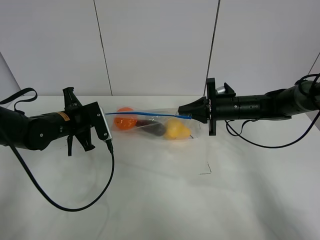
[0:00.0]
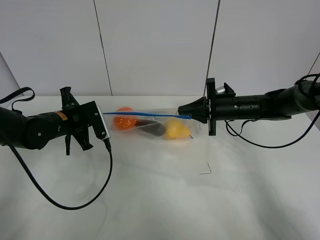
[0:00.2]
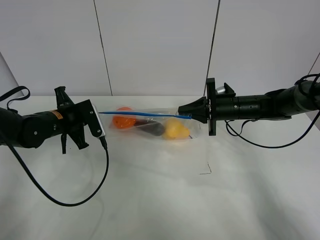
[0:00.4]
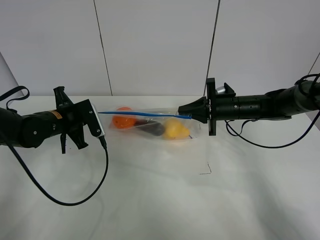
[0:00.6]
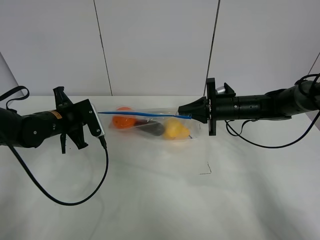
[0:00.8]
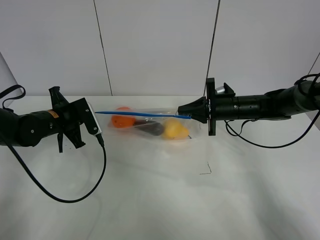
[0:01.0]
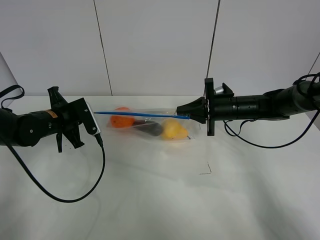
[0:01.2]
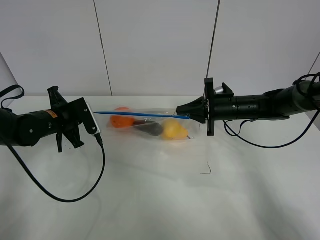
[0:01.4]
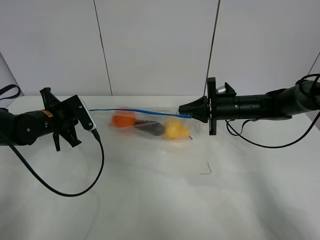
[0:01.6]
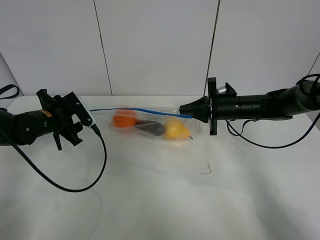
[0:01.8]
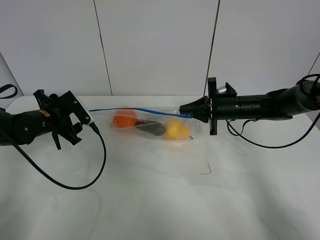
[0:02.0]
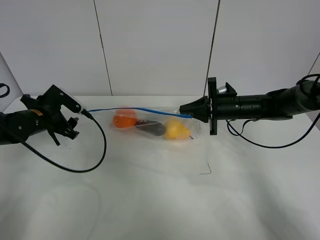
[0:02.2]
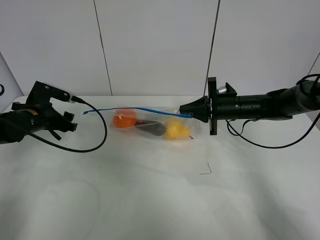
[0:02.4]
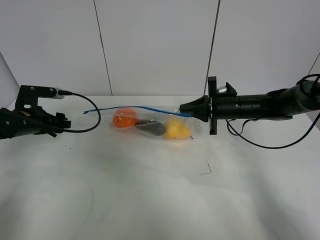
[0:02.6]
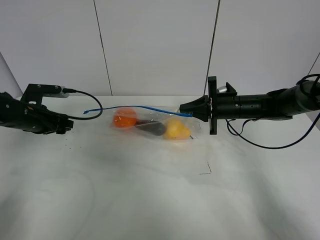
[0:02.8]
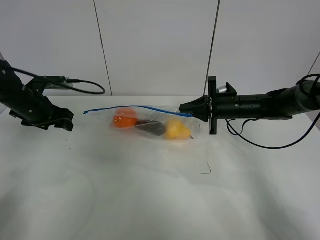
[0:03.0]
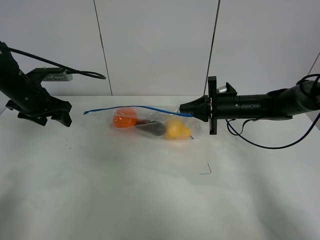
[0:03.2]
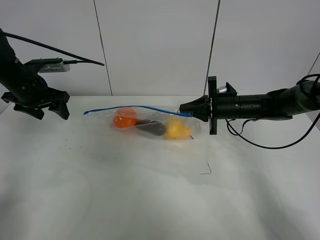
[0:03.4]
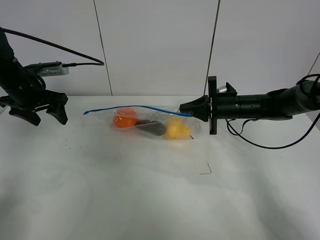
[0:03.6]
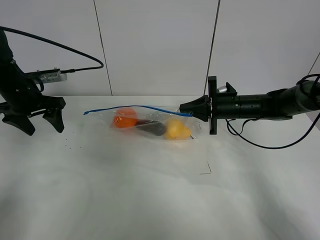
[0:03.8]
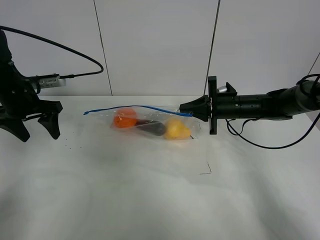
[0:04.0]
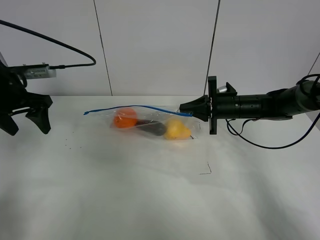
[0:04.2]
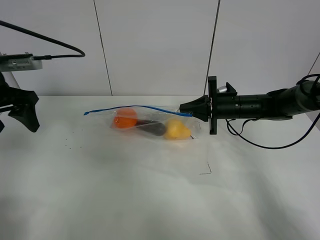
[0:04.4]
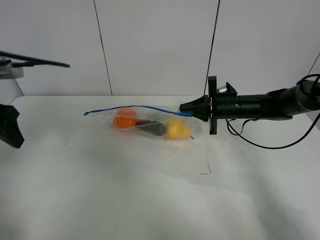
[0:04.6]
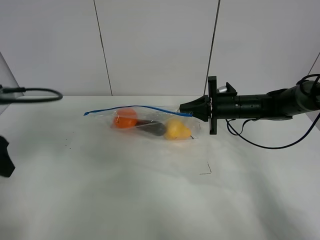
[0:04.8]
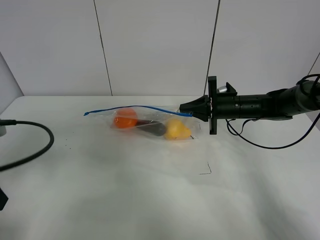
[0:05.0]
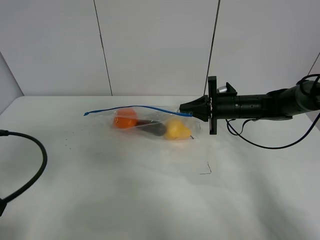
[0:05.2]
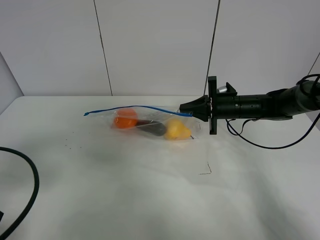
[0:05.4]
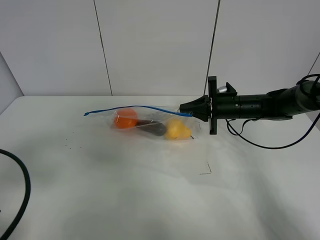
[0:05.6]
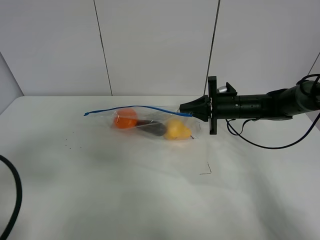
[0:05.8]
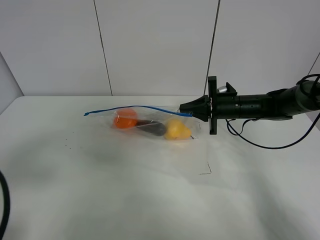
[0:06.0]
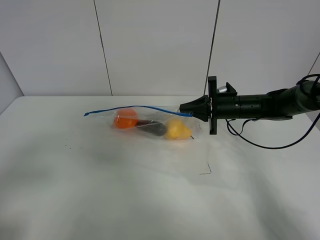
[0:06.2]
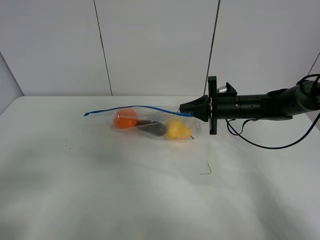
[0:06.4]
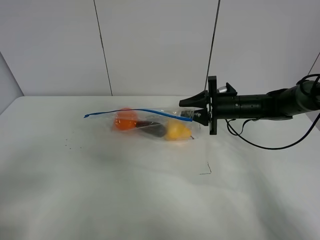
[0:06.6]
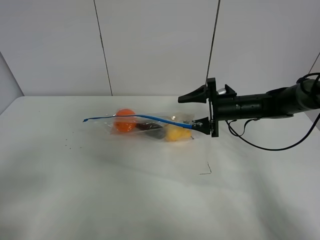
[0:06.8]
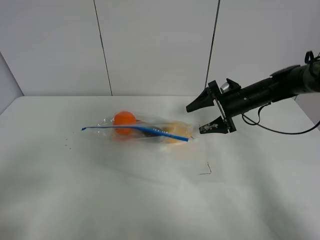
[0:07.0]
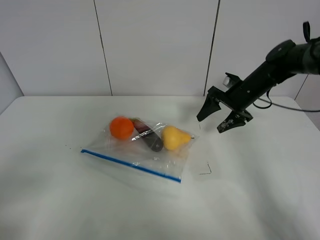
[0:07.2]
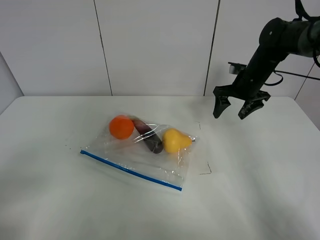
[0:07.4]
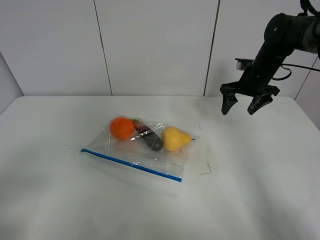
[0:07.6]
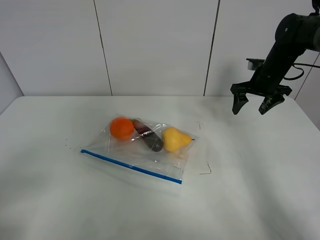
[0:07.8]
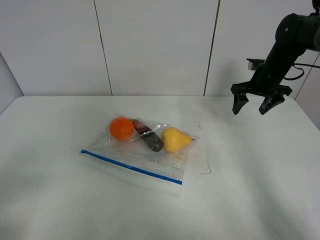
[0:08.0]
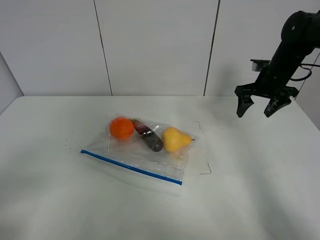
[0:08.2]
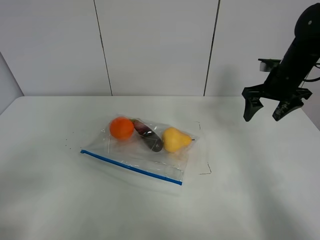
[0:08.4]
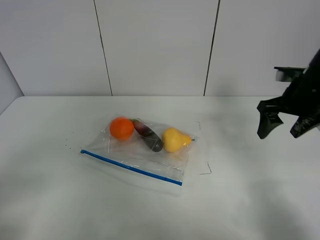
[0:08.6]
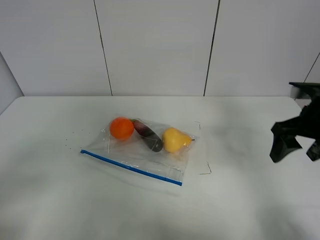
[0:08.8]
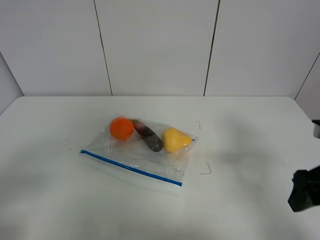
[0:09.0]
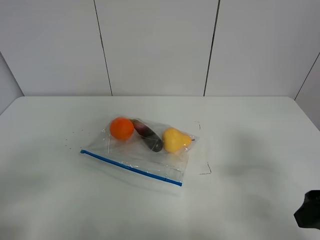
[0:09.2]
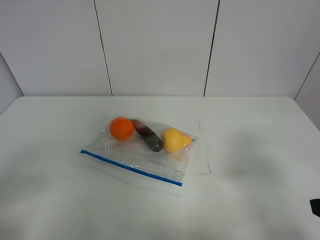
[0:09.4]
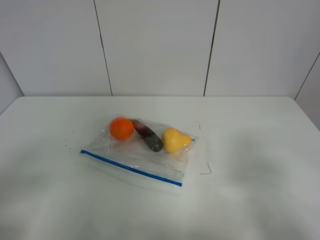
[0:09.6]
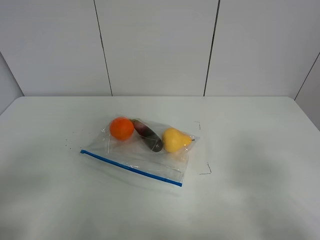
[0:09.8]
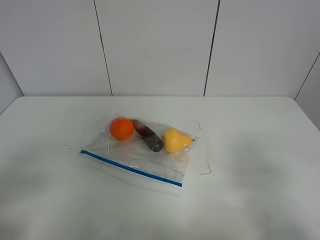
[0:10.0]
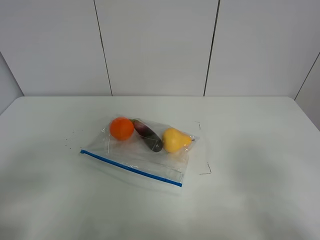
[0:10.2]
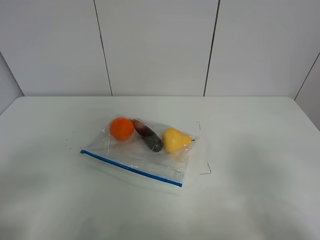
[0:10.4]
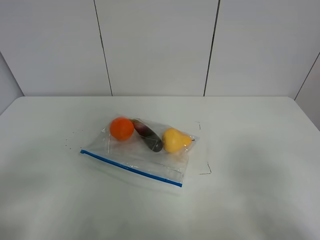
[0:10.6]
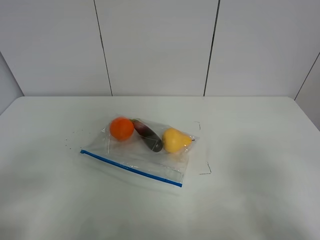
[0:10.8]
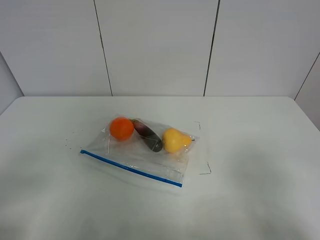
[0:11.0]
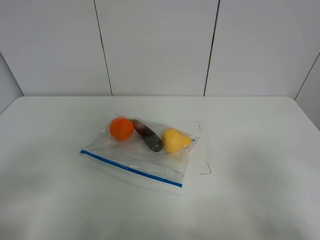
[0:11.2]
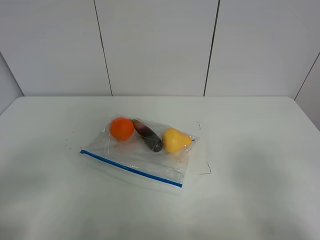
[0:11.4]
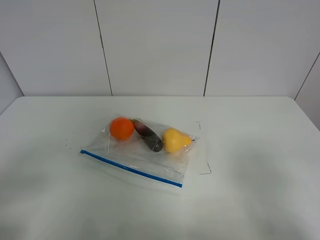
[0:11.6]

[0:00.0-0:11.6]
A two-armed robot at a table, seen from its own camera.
Step, 0:01.8 to 0:07.4: Place the fruit bag with right gripper.
0:00.0 to 0:01.4: The grippers move only a little.
0:01.4 to 0:02.8: The left gripper travels to the left by some 5 cm, and opens.
0:02.8 to 0:04.4: The left gripper is displaced upward and backward by approximately 15 cm.
0:04.4 to 0:05.8: The left gripper heads backward, covering about 20 cm.
0:05.8 to 0:07.2: The left gripper is displaced backward by approximately 10 cm. Meanwhile the right gripper changes place by roughly 5 cm, and opens up.
0:07.2 to 0:08.8: The right gripper travels backward by roughly 20 cm.
0:08.8 to 0:10.2: The right gripper heads backward, covering about 20 cm.
